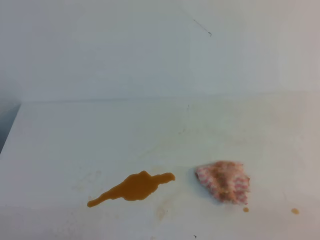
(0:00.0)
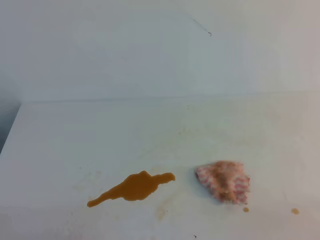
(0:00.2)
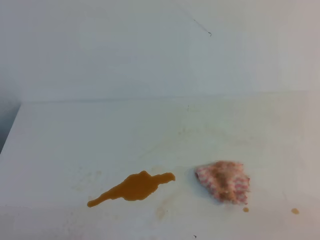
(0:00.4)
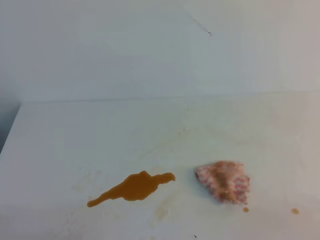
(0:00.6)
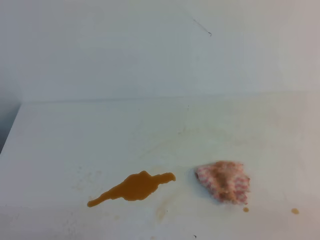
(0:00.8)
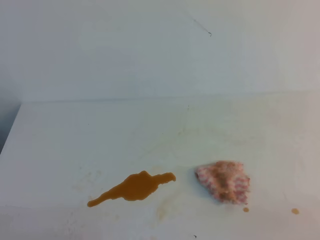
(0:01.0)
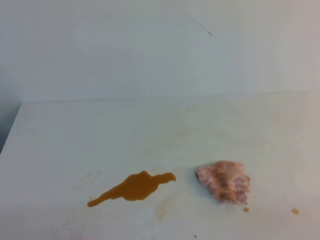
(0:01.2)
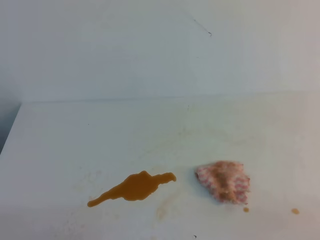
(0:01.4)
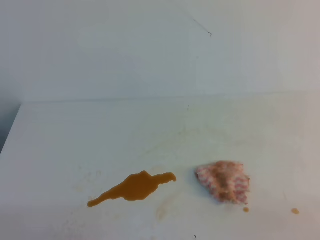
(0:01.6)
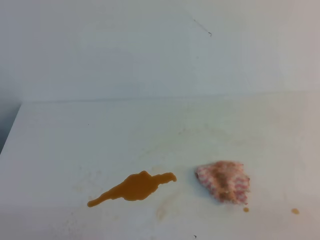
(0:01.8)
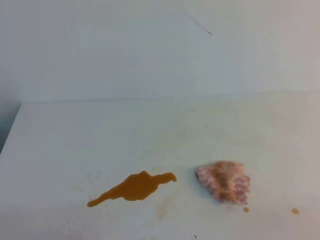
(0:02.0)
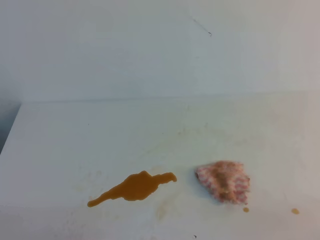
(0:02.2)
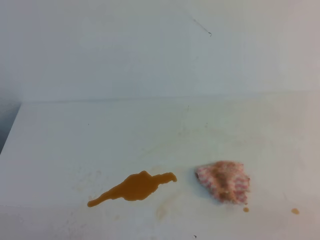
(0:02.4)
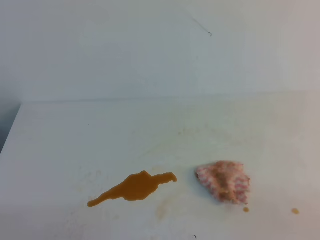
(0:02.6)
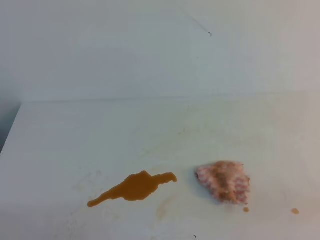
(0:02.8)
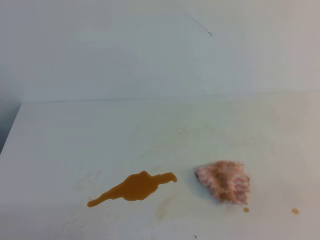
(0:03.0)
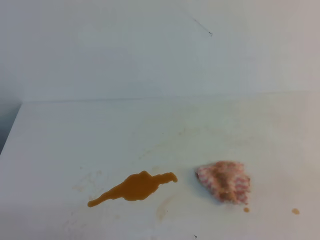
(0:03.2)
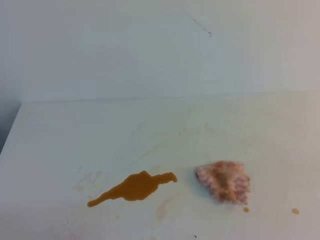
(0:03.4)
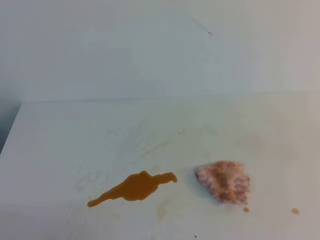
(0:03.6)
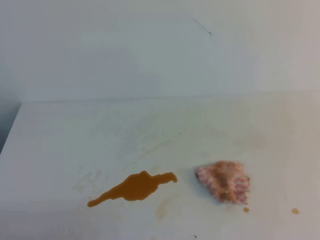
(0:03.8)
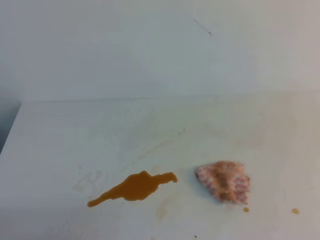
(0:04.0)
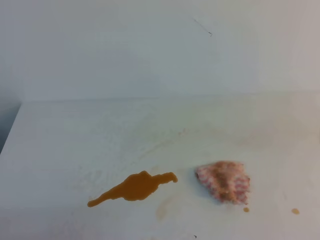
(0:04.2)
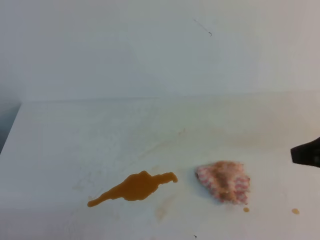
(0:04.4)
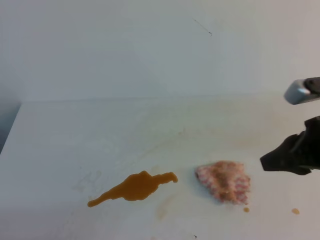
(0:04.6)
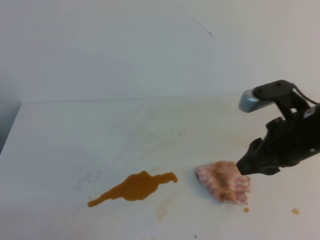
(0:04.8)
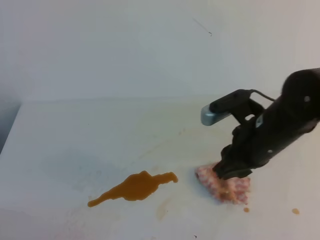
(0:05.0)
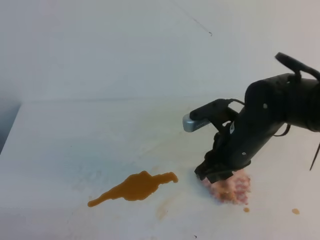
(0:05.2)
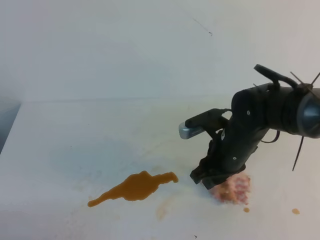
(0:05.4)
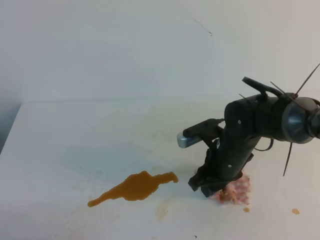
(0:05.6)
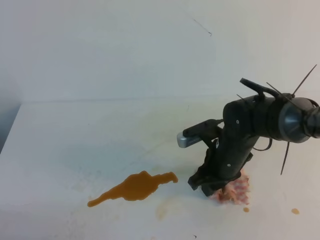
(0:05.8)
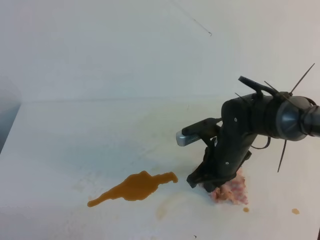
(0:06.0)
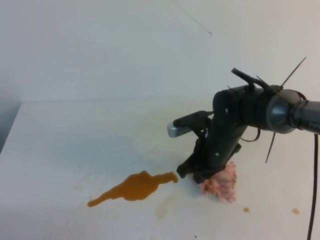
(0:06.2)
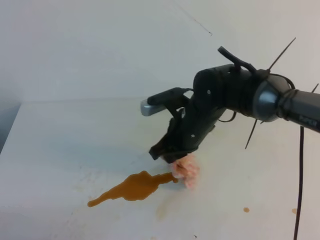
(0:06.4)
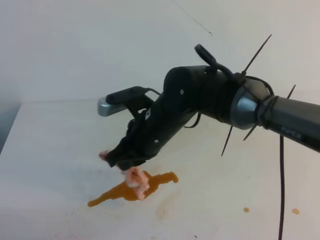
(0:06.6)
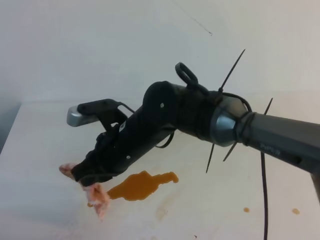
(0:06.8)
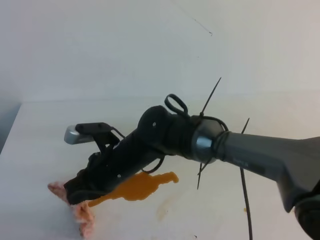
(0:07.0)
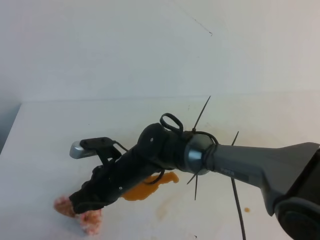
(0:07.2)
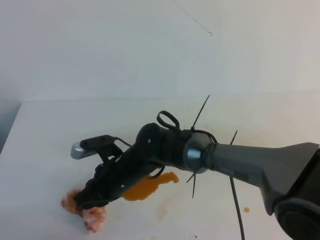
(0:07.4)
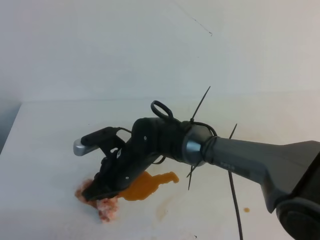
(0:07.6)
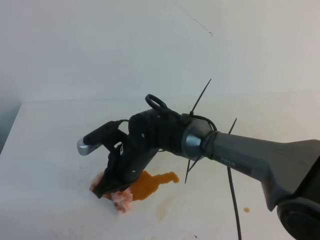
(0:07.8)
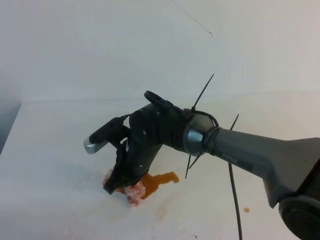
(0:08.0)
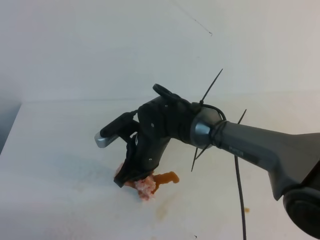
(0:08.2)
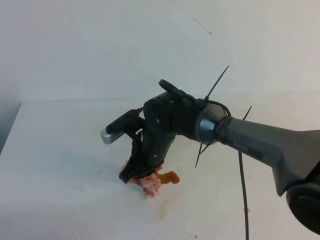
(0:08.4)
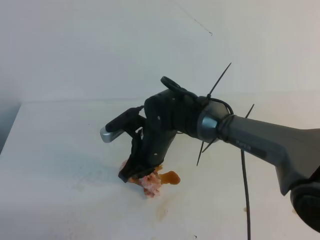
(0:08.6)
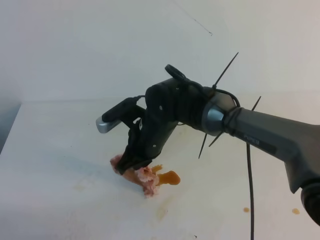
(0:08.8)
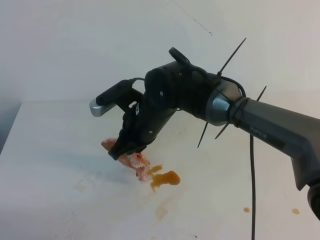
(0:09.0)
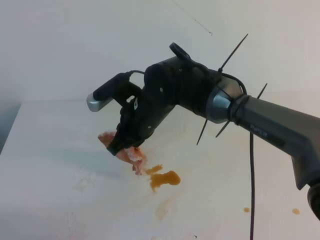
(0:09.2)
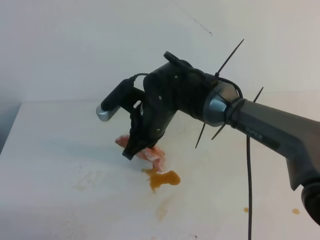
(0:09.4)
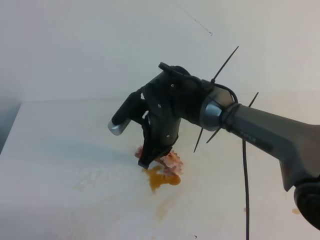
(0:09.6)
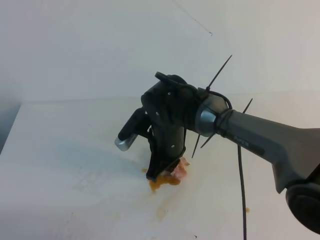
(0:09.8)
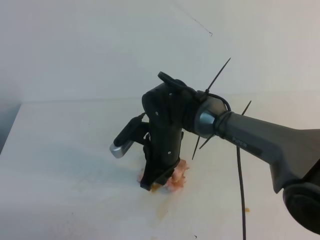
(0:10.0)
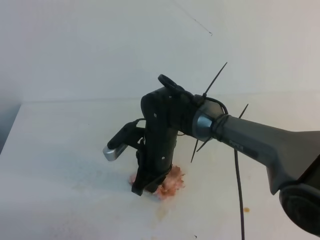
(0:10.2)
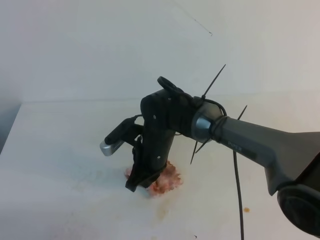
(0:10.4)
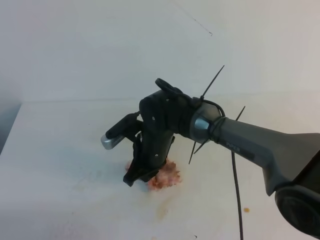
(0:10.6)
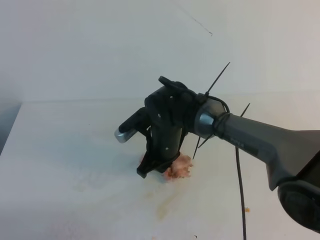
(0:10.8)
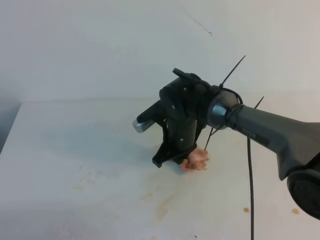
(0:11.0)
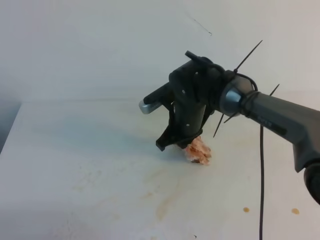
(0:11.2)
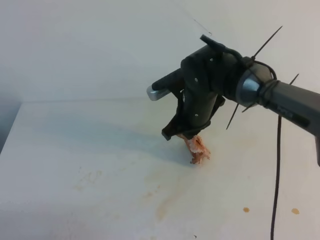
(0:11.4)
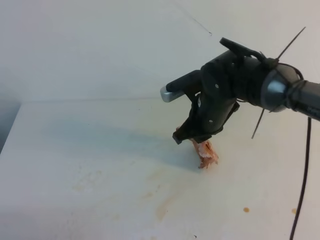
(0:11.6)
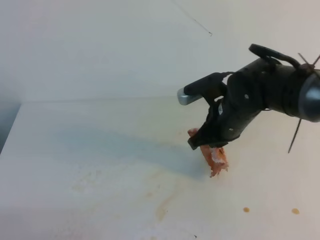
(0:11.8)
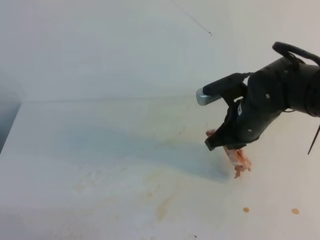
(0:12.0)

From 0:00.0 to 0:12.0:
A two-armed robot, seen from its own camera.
From 0:03.0 to 0:04.4: The right gripper moves forward, upward and to the left, some 20 cm.
From 0:04.4 to 0:06.0: The right gripper shifts some 25 cm downward, to the left and forward, and opens, then closes once more.
From 0:06.0 to 0:07.6: The right gripper shifts some 15 cm to the left, and closes up.
From 0:07.6 to 0:09.0: The right gripper shifts about 10 cm upward.
From 0:09.0 to 0:10.4: The right gripper shifts some 5 cm downward.
From 0:10.4 to 0:12.0: The right gripper shifts approximately 15 cm to the right and upward.

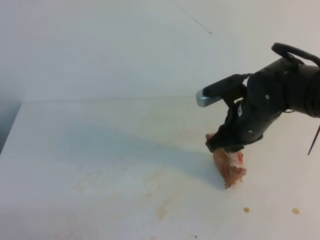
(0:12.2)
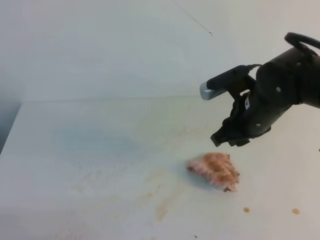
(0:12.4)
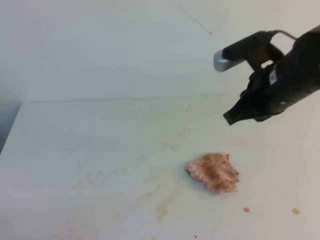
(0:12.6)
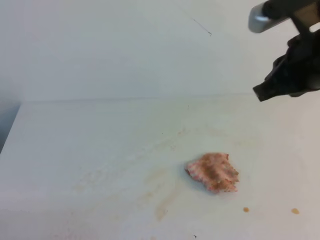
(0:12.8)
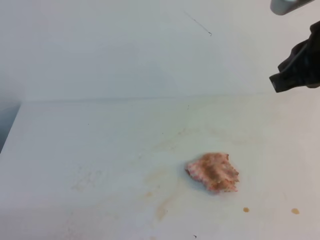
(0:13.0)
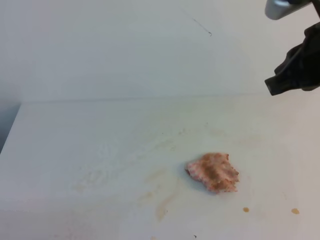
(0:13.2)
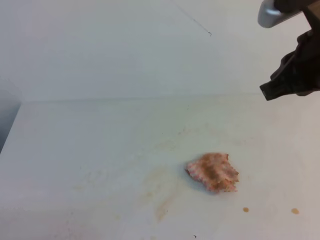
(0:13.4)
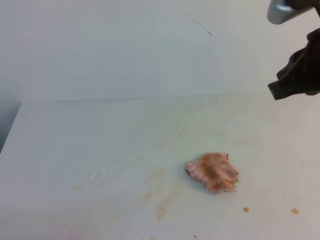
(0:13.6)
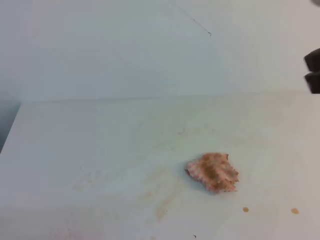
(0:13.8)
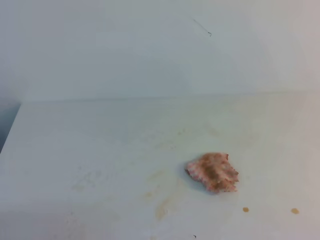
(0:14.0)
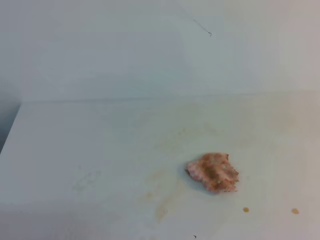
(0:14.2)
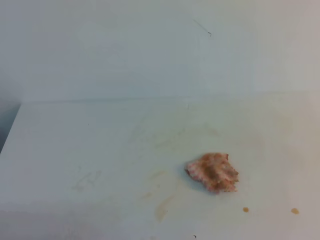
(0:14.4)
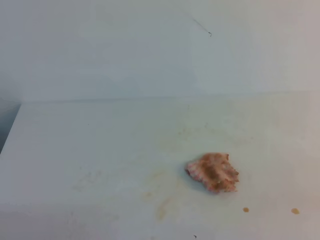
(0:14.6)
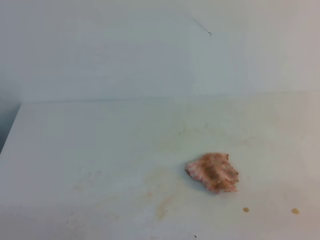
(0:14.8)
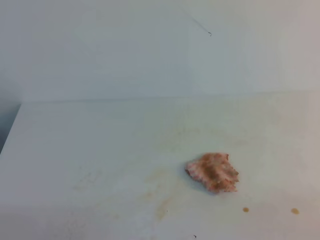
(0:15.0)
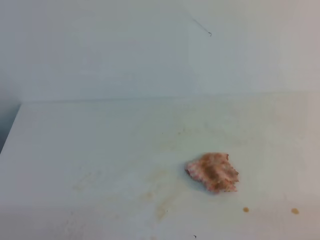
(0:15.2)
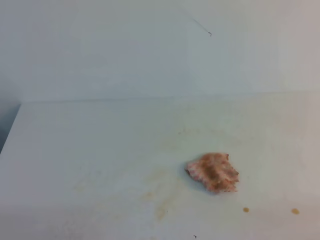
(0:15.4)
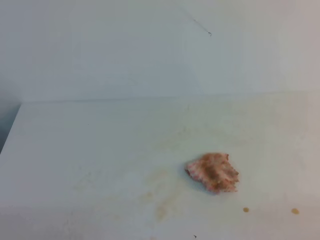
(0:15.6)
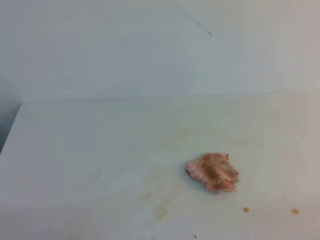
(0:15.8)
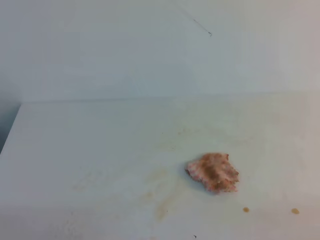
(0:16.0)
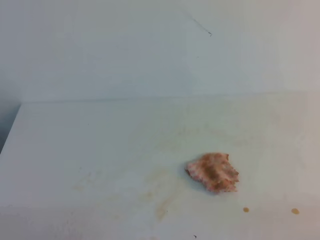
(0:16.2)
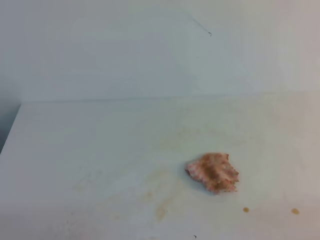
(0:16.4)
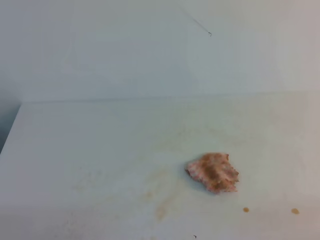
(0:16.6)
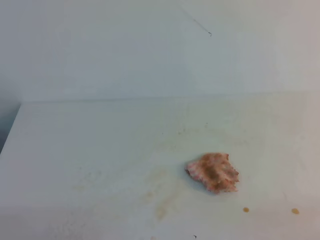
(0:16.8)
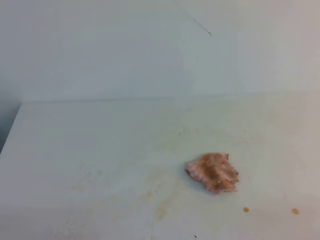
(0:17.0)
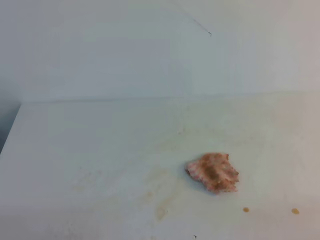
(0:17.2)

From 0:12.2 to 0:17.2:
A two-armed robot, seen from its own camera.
From 0:12.2 to 0:13.8: The right gripper heads upward, backward and to the right, covering approximately 25 cm, and closes its fingers.
From 0:13.8 to 0:15.6: The right gripper is displaced downward, backward and to the right by roughly 30 cm.
From 0:15.6 to 0:17.2: Both grippers stay put.
